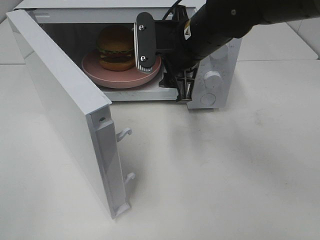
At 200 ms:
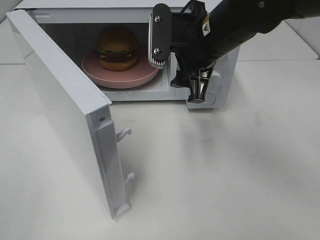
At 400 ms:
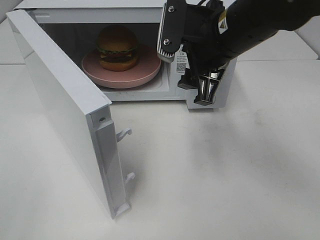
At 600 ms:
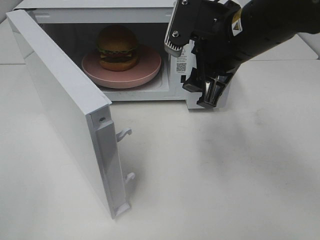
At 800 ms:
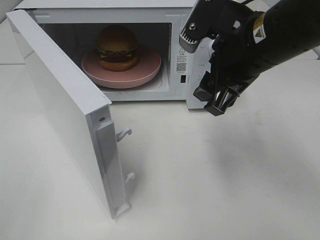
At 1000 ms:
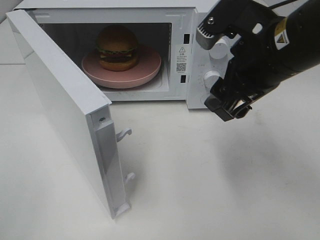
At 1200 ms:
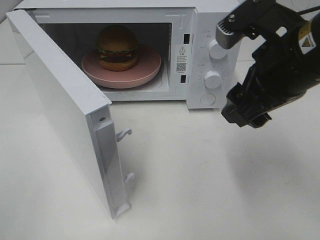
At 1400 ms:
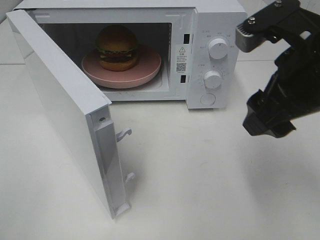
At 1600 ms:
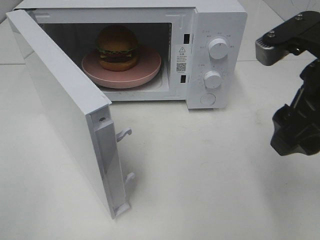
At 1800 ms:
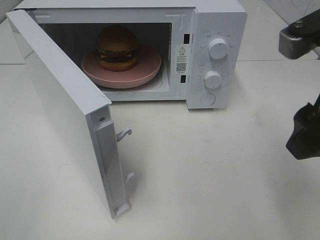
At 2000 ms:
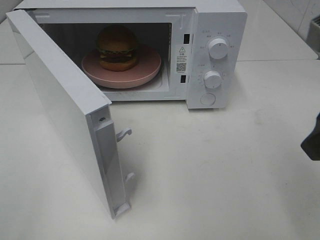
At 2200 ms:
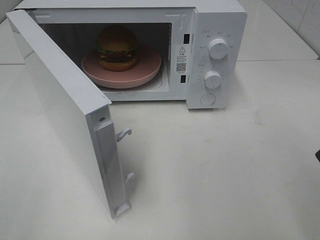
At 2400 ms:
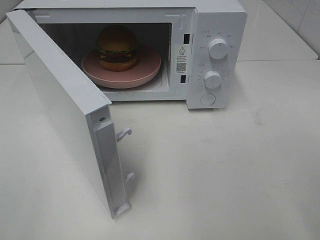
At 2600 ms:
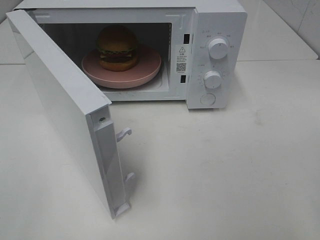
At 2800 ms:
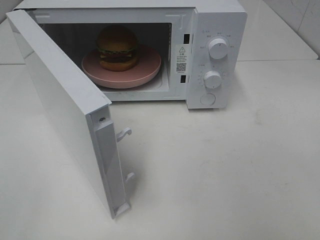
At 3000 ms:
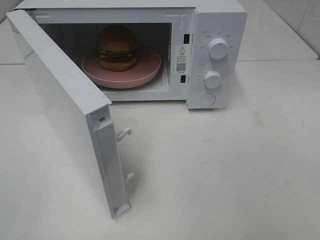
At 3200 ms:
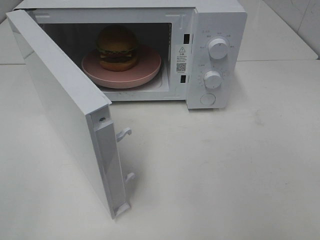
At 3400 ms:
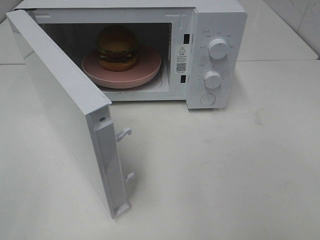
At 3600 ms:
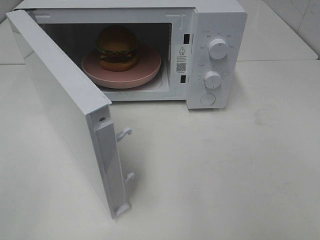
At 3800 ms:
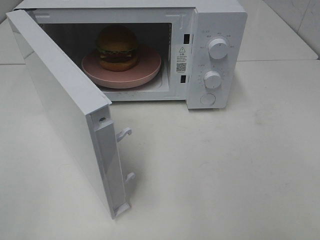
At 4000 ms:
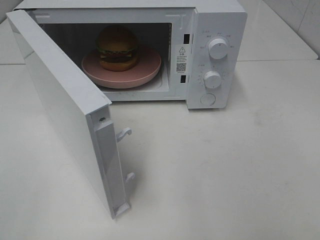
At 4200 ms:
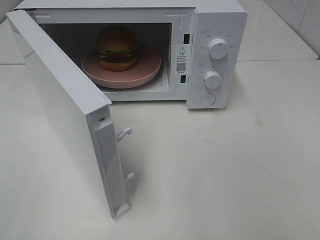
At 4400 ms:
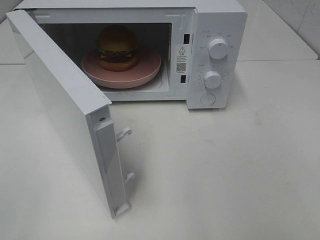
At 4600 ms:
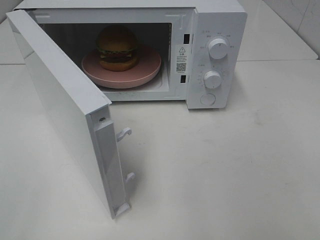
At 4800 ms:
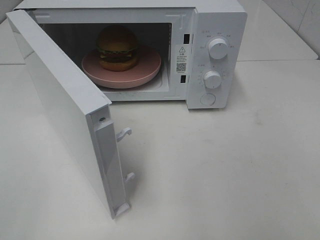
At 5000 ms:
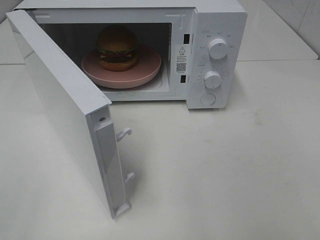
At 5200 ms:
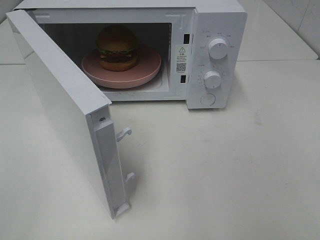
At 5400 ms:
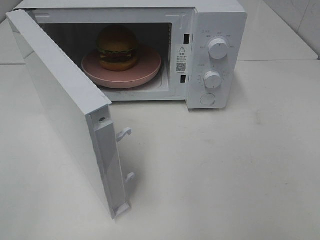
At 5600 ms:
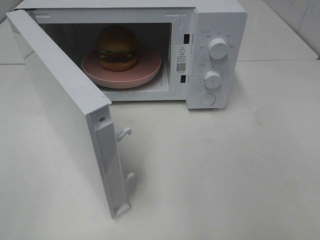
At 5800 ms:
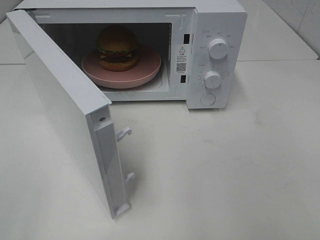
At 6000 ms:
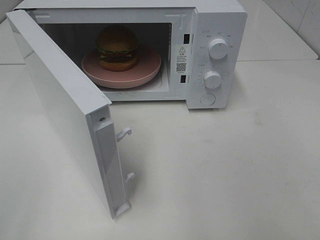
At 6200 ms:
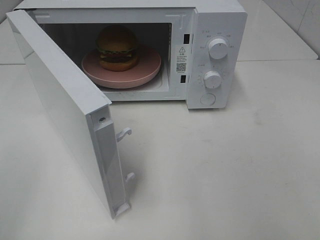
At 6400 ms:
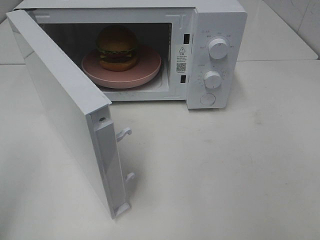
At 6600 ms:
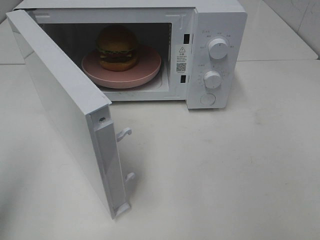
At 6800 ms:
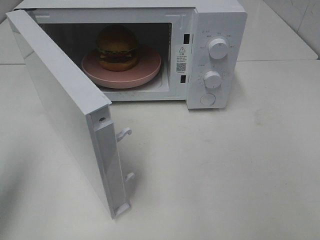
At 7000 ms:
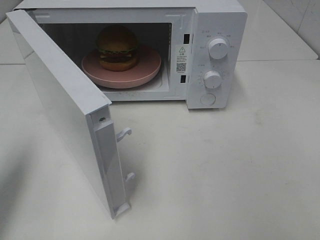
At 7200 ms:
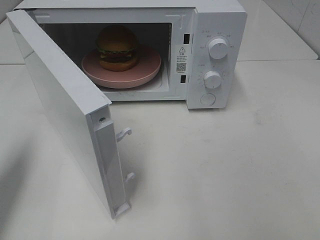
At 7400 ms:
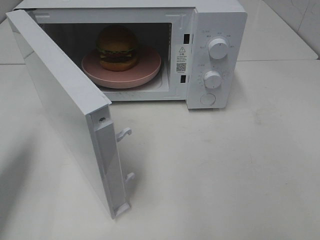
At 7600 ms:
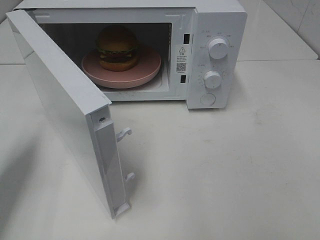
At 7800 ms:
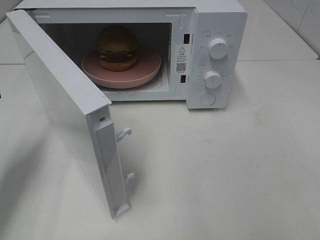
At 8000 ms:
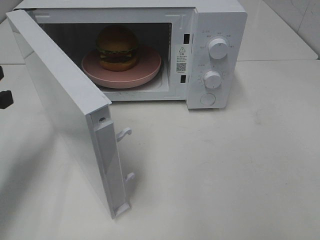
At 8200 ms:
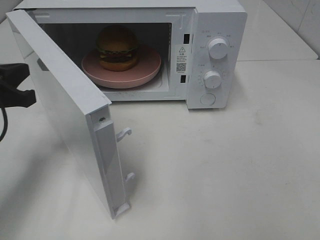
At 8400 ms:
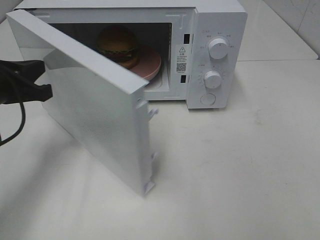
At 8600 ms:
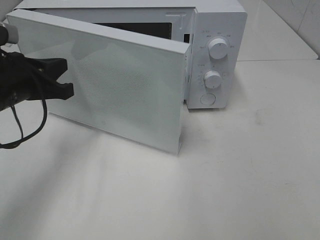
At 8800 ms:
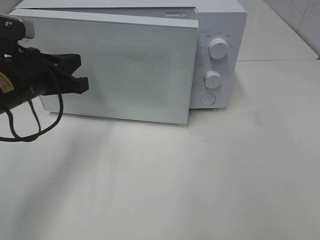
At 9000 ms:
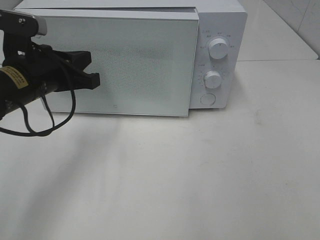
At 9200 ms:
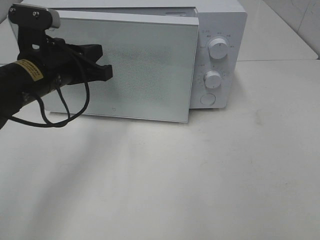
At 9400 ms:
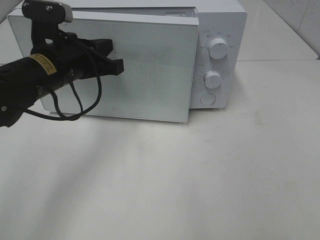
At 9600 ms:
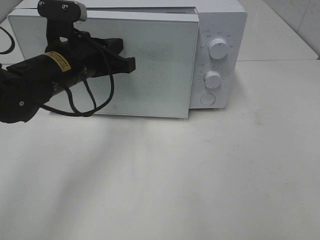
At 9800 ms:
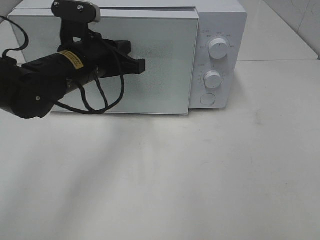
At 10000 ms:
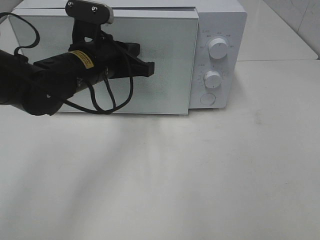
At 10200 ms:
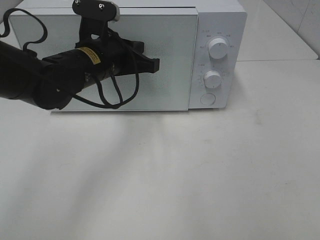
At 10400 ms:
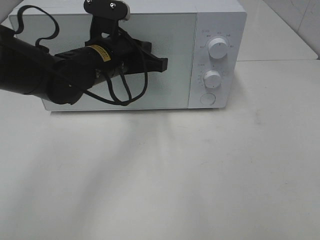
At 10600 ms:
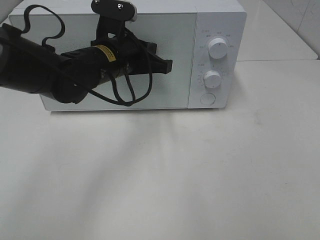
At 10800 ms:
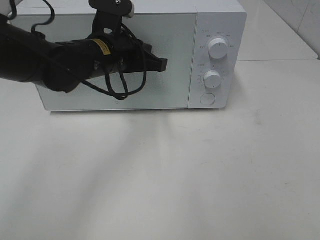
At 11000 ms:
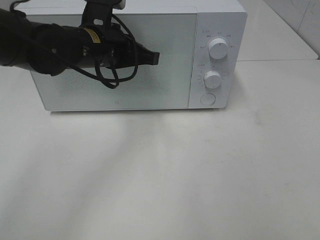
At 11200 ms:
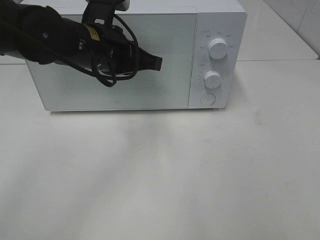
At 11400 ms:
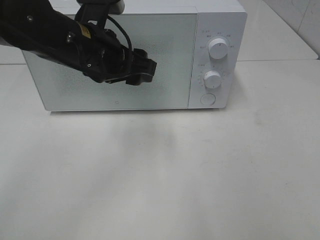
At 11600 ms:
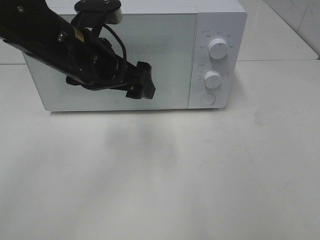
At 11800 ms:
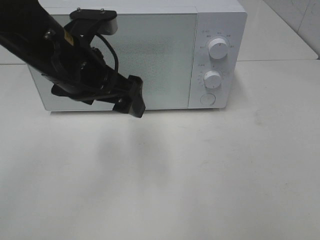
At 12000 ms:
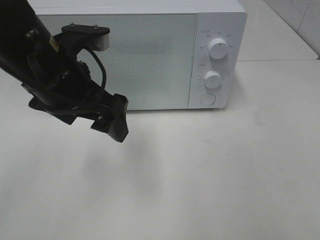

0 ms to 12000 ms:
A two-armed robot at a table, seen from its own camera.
Task of the whole recording: Heat the burger.
Step, 0 ms to 11200 ms: Left hand: close the microwave door.
0 ms to 1600 ms: The right gripper shifts approximately 20 cm backward and to the right.
1600 ms to 3000 ms: The right gripper heads backward and to the right, covering about 15 cm.
6000 ms to 7600 ms: The left gripper moves forward and downward, roughly 20 cm, and closes up.
7600 ms to 9000 ms: The left gripper shifts about 15 cm to the right and forward.
9000 ms to 10400 ms: The left gripper moves to the right and forward, about 10 cm.
10400 ms to 12000 ms: The left gripper heads backward and upward, covering some 10 cm, and opens up.

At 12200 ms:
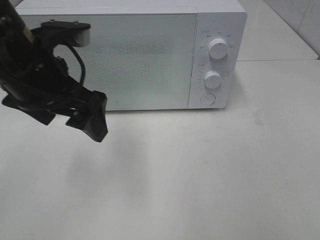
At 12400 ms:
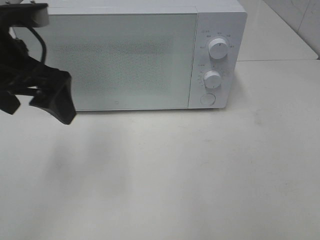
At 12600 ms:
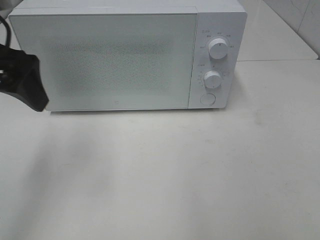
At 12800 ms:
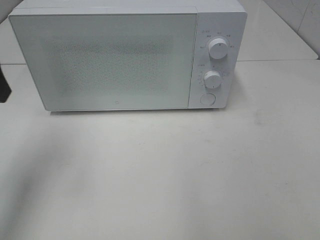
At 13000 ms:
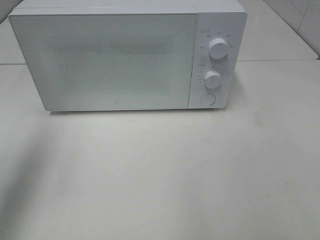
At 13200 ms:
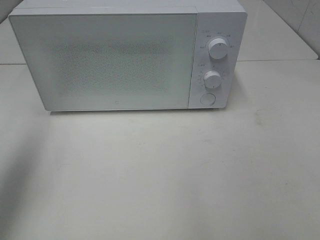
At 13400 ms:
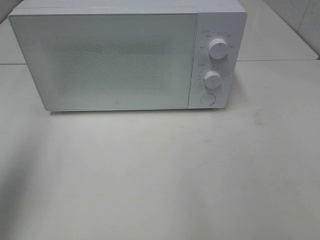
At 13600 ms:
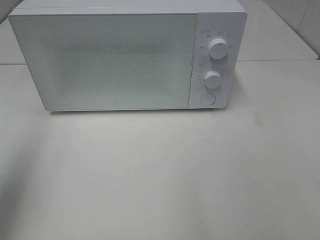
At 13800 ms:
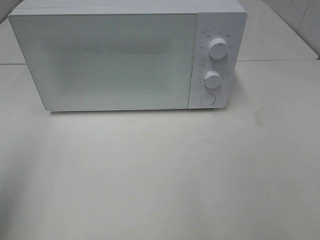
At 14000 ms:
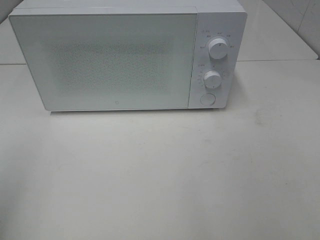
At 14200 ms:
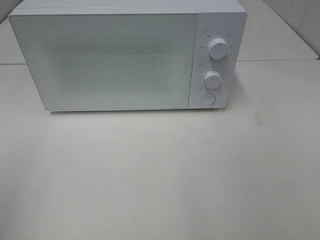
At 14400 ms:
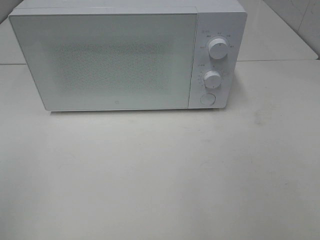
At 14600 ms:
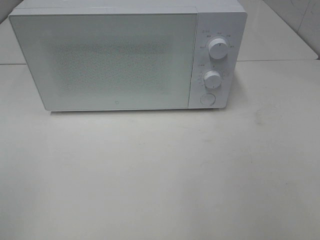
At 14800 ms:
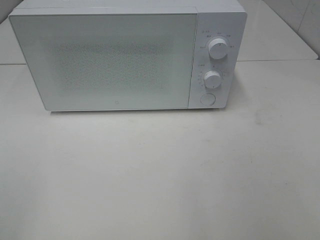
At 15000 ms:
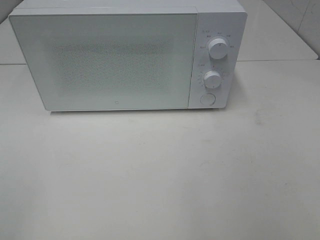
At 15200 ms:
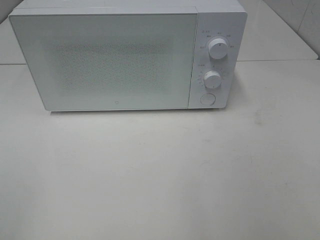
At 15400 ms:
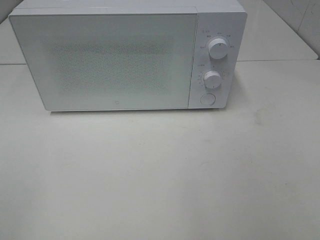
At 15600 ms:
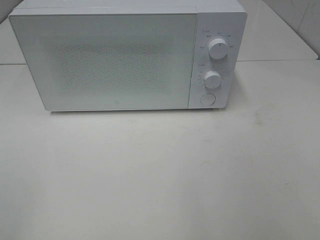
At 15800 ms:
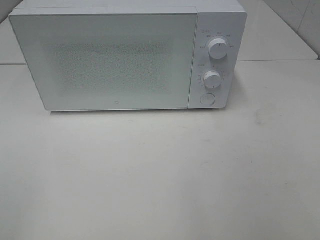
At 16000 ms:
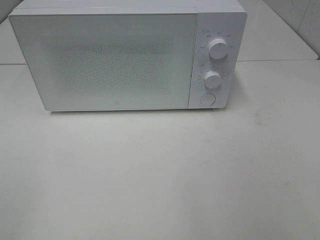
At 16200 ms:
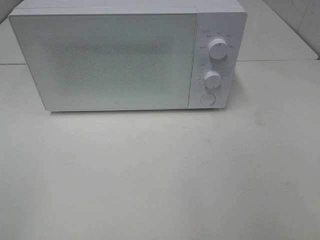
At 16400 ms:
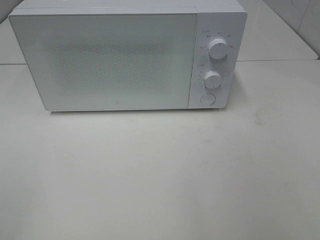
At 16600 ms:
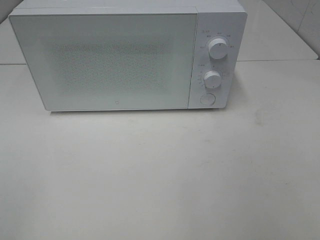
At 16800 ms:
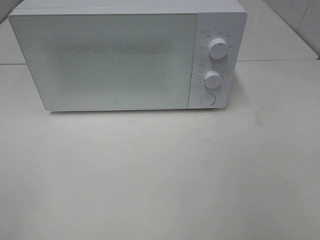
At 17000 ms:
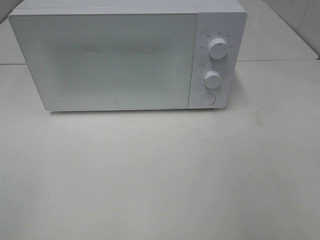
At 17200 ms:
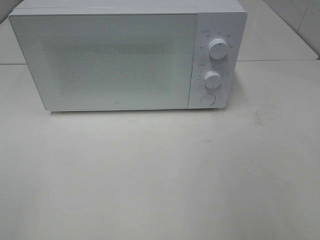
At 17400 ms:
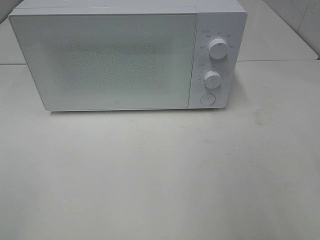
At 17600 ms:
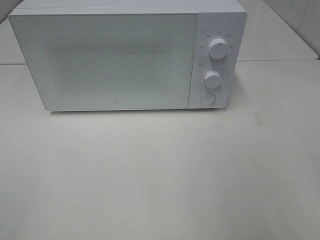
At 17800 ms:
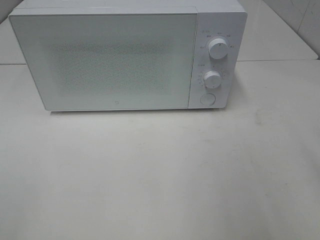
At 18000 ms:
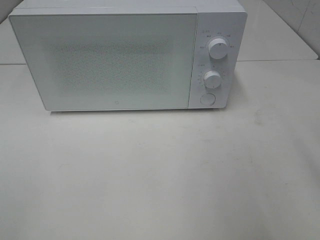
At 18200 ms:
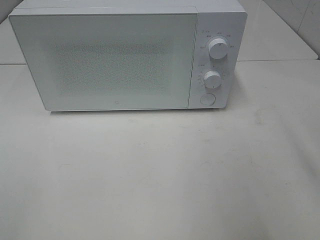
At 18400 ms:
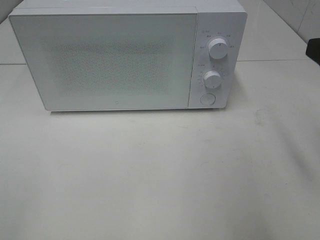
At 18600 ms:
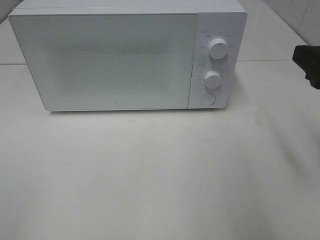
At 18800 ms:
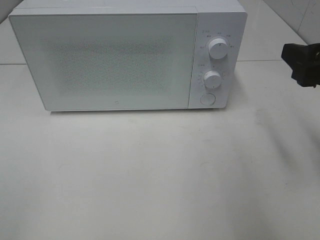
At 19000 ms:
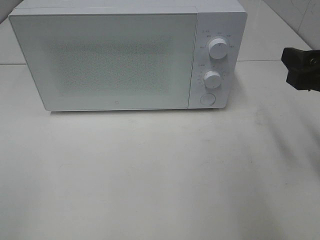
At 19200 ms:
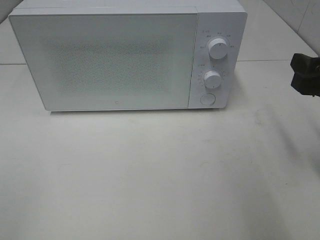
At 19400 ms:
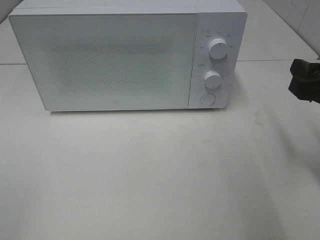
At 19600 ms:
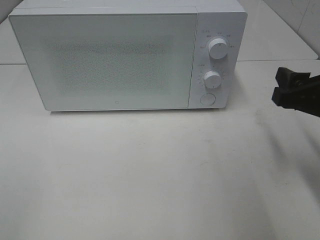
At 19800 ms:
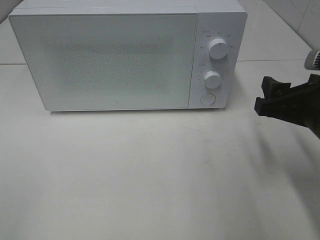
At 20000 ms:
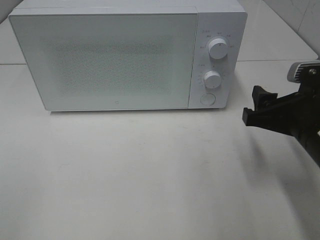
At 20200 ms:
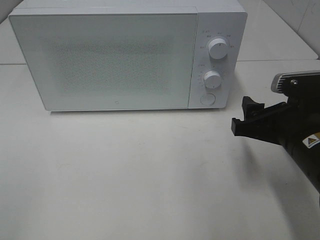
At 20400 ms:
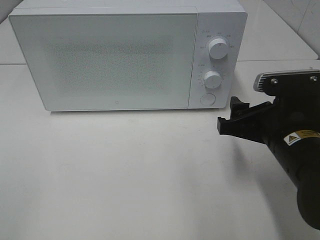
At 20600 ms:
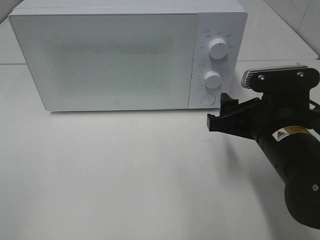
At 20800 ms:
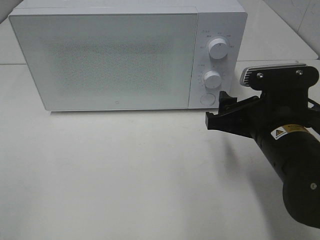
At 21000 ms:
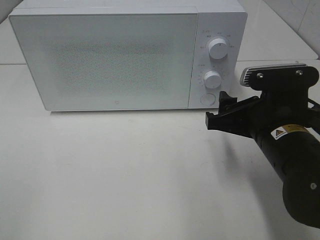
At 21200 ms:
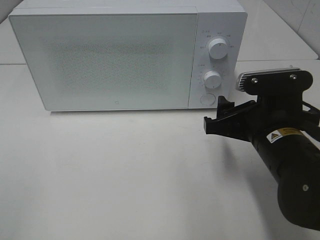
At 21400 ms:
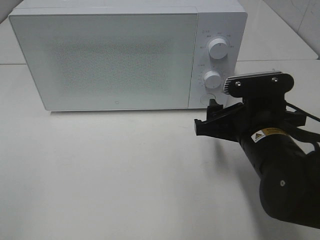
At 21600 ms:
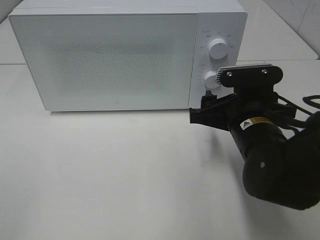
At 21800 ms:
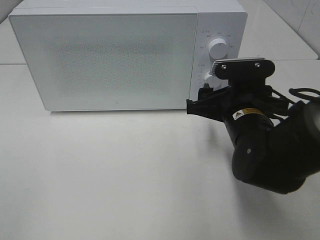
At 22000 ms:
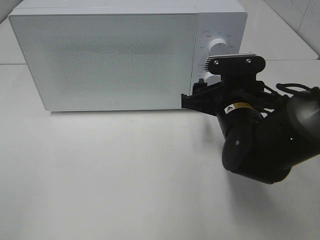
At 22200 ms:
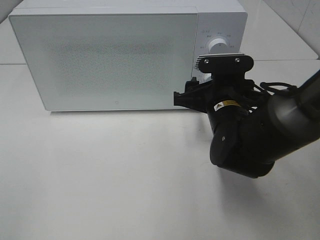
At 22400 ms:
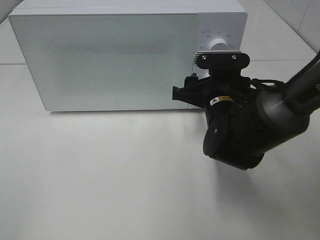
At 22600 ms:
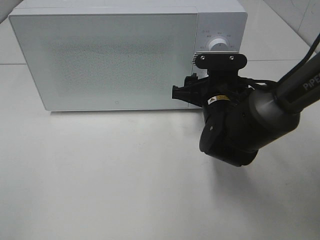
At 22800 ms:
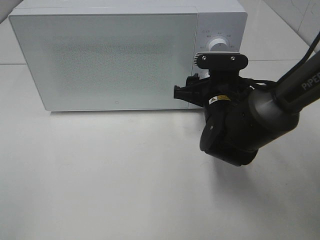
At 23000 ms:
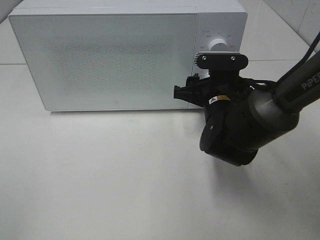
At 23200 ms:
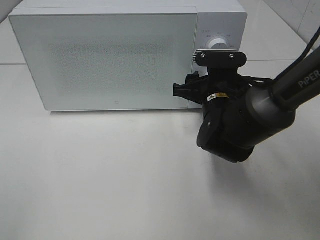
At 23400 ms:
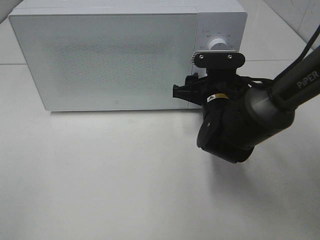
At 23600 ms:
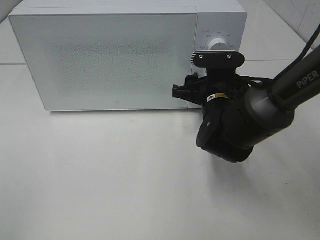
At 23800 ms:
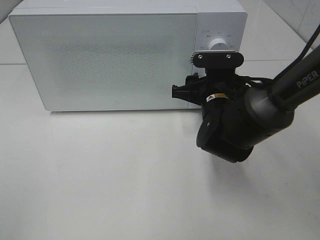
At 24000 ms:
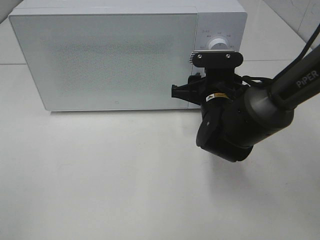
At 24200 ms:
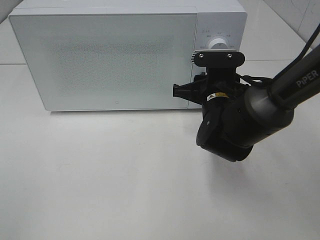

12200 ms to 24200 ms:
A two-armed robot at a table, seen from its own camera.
Task of the whole recording: Heat the burger.
12200 ms to 13800 ms: The left gripper shifts approximately 25 cm to the left, backward and upward.
13800 ms to 15200 ms: The left gripper moves backward and downward, some 15 cm.
18200 ms to 19800 ms: The right gripper moves downward, approximately 10 cm.
19800 ms to 21200 ms: The right gripper is displaced to the left by some 5 cm.
21200 ms to 22600 ms: The right gripper heads forward, covering some 10 cm.
22600 ms to 24200 ms: Both grippers stay put.
